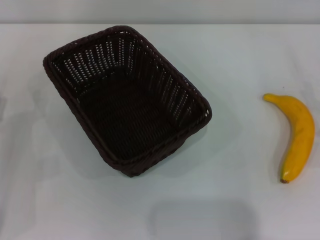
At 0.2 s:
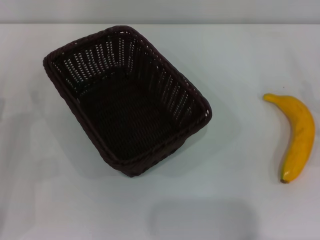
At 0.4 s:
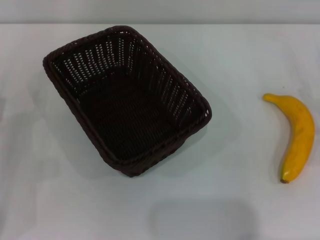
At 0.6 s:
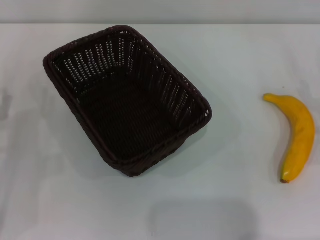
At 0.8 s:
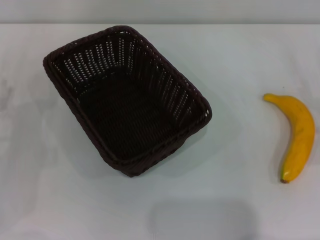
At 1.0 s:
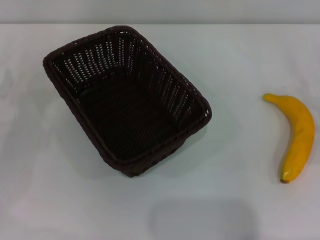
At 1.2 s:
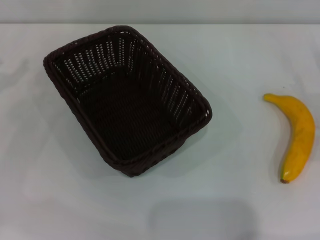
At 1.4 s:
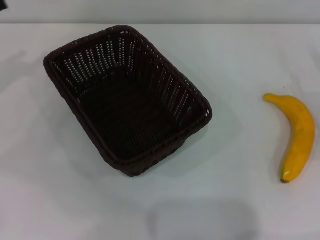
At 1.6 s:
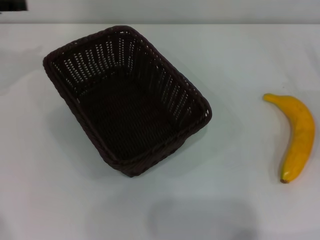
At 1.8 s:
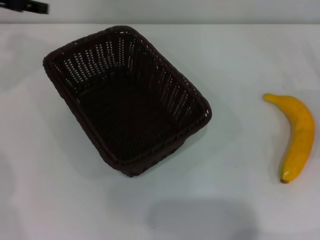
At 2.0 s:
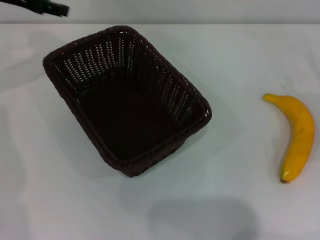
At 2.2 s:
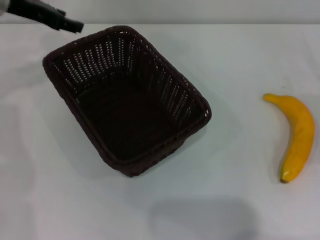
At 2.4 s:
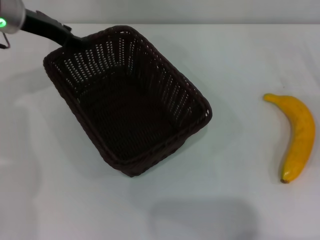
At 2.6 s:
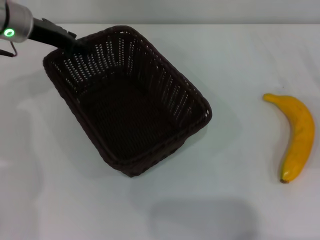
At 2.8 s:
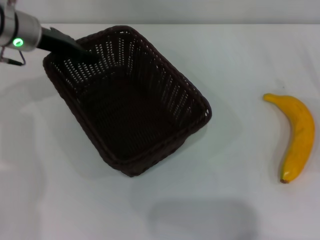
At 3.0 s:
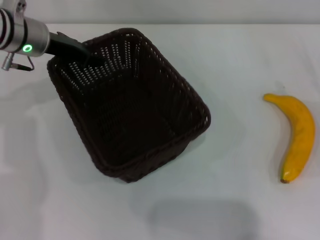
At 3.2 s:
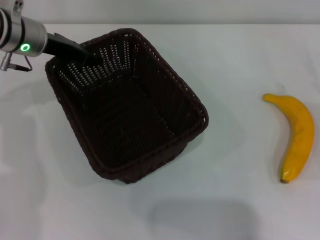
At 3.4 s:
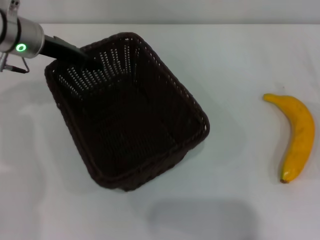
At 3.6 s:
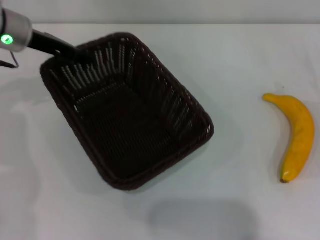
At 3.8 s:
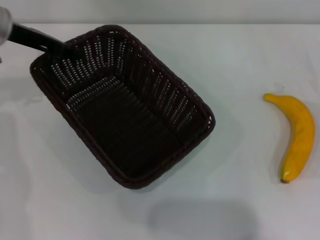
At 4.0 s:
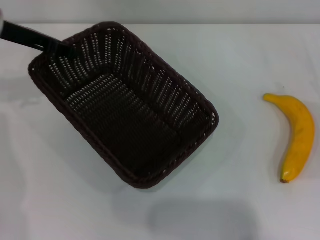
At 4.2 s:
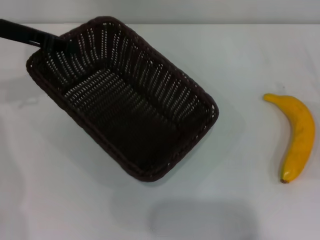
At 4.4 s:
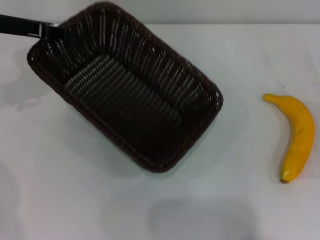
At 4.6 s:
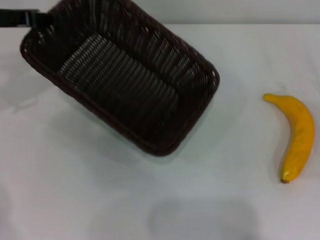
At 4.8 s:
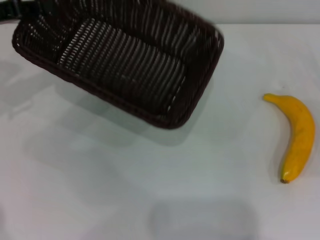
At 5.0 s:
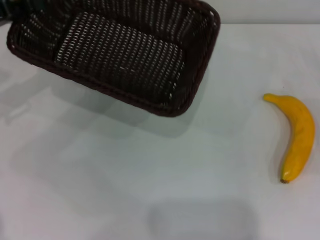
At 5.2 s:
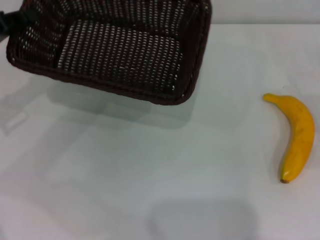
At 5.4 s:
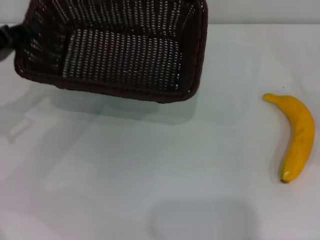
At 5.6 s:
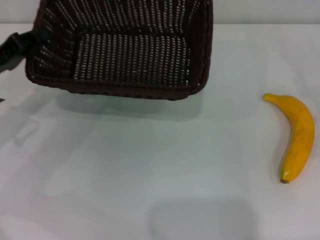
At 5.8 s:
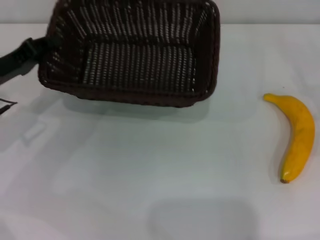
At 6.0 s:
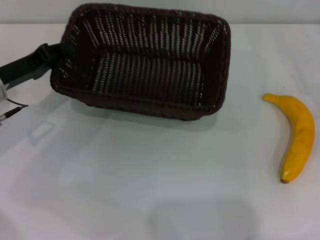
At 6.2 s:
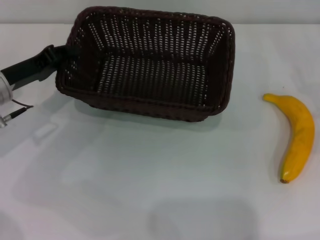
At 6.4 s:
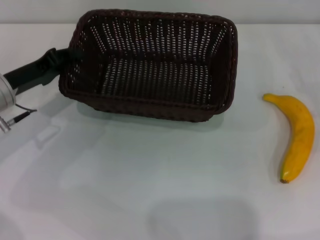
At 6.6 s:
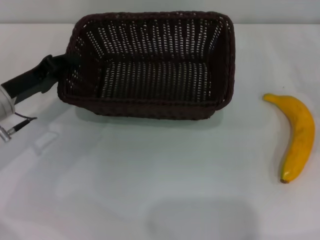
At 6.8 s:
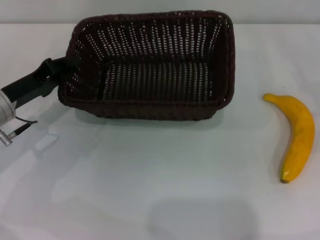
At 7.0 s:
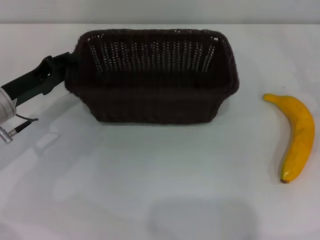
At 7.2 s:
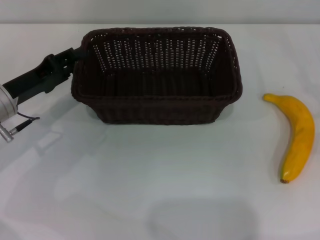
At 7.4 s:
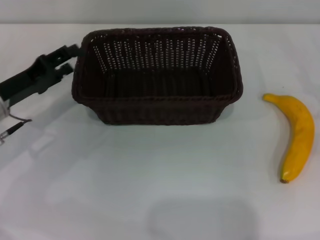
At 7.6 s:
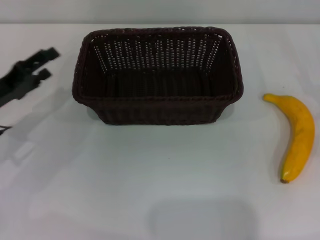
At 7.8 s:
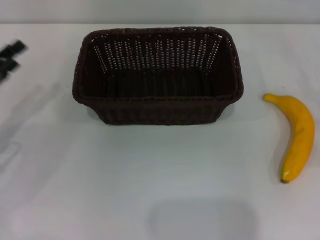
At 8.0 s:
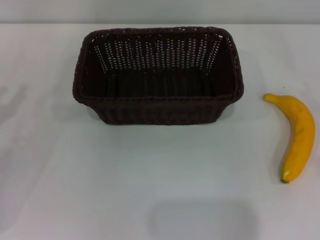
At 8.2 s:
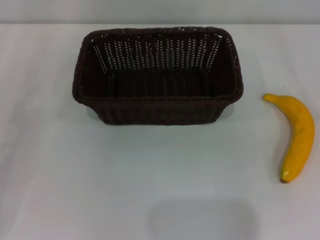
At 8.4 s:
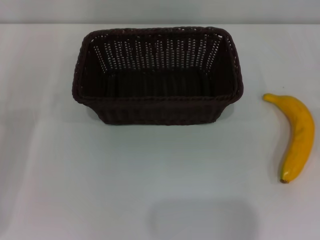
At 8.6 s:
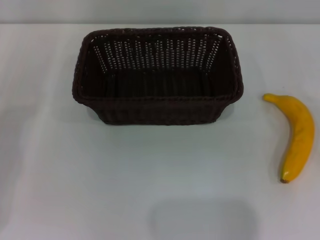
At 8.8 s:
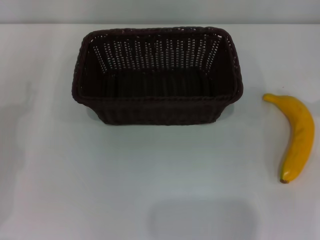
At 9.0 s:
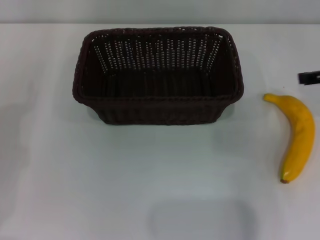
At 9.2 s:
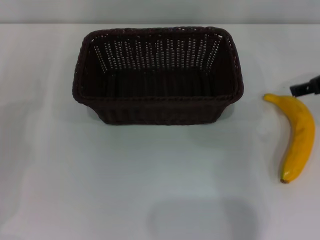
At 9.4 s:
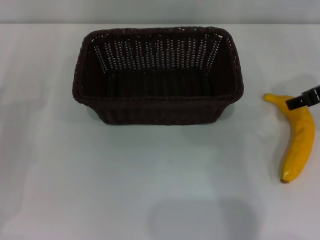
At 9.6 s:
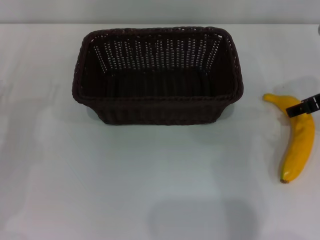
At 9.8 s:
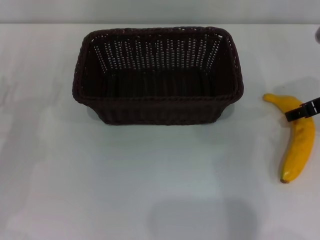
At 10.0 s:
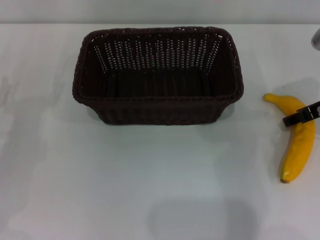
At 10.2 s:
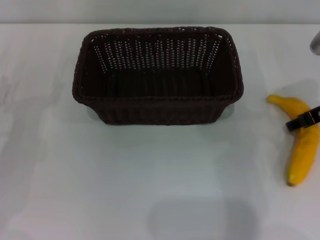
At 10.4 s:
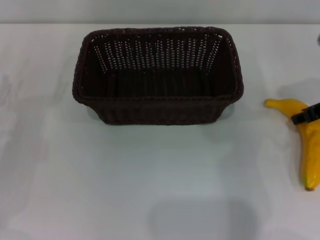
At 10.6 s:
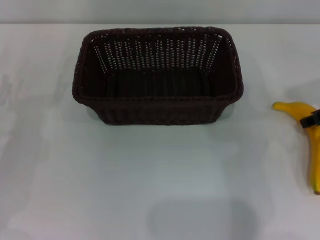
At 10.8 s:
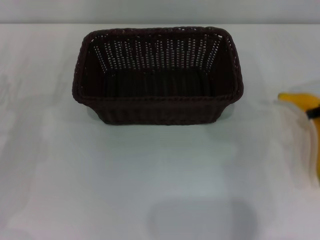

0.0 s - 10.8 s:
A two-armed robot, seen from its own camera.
Step, 0.0 s - 3.8 s: Pick up the dark basket with the left gripper.
Step, 4.0 s - 7.4 s: Place the dark basket in the center of view with the left gripper.
0.0 s - 1.6 s: The left gripper moves upward and forward, roughly 25 cm.
1.6 s - 3.0 s: The left gripper shifts about 15 cm to the right and downward.
3.0 s - 4.6 s: The left gripper shifts roughly 10 cm to the left and upward, and closes its fingers.
4.6 s - 6.2 s: The right gripper shifts by approximately 5 cm. Meanwhile the left gripper travels downward by approximately 10 cm.
6.2 s - 7.8 s: The left gripper is displaced backward and to the left by approximately 10 cm, and opens up.
7.8 s - 9.2 s: The right gripper moves upward, to the left and forward, about 20 cm.
9.2 s - 10.8 s: The right gripper closes up.

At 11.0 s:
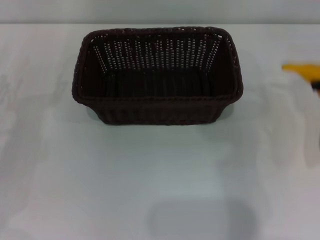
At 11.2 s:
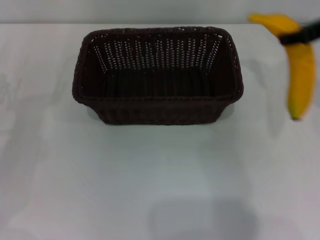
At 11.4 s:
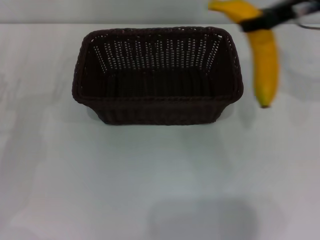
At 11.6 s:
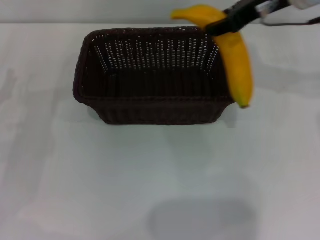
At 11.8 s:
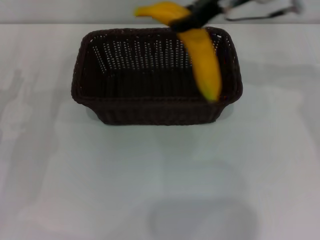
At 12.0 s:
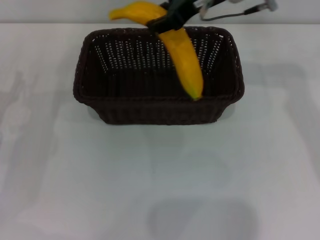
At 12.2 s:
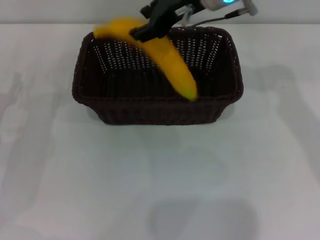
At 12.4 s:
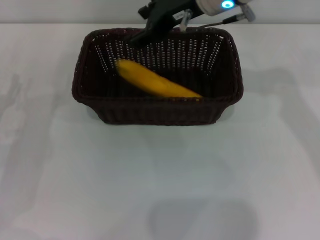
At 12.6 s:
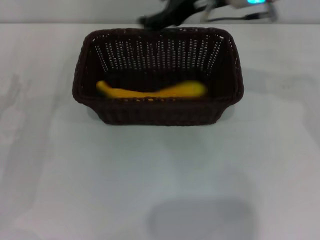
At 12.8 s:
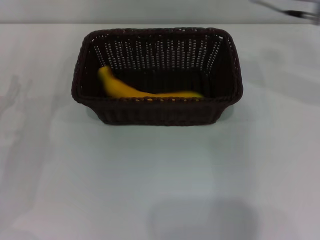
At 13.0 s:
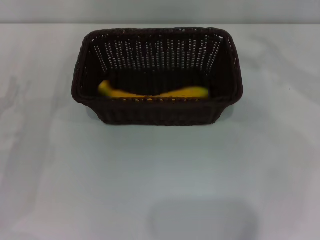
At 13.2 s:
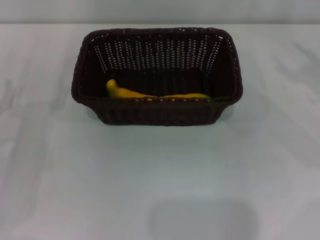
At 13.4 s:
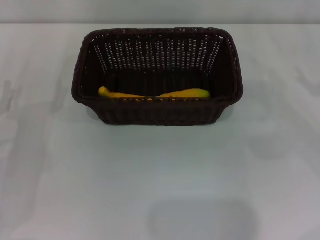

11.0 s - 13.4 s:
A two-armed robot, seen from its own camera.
Step, 11.0 s - 12.4 s: Place the banana into the dark basket with the right gripper.
11.0 s - 12.2 s: The right gripper goes approximately 20 cm to the left.
12.2 s - 13.4 s: The right gripper goes about 35 cm to the right, downward and backward, and opens up.
